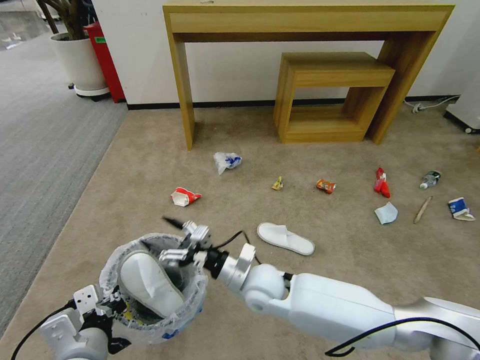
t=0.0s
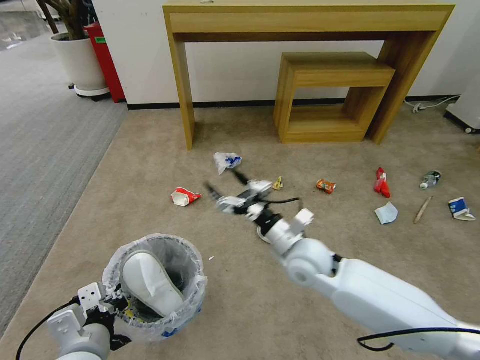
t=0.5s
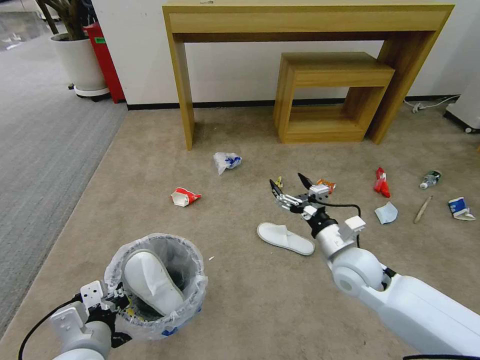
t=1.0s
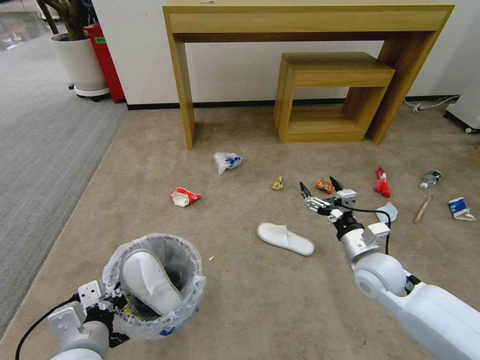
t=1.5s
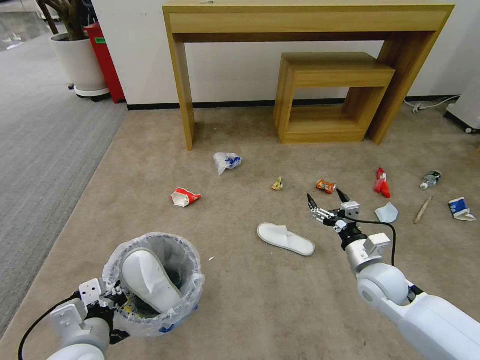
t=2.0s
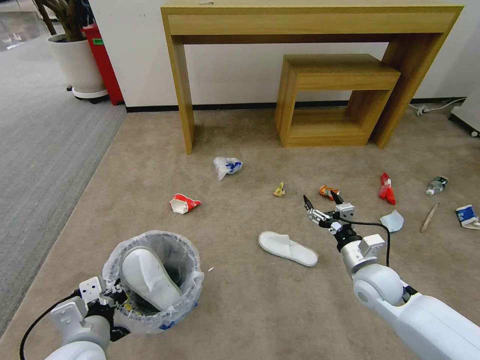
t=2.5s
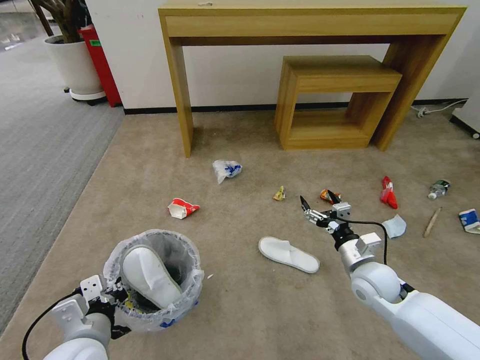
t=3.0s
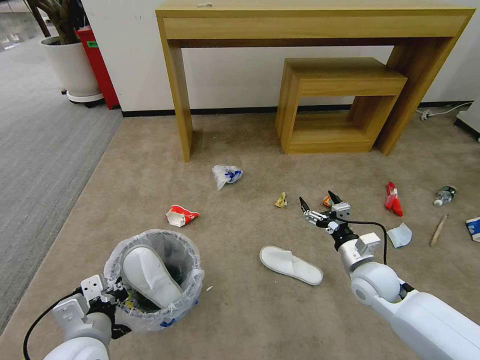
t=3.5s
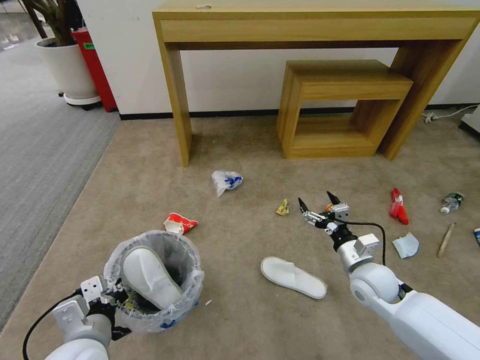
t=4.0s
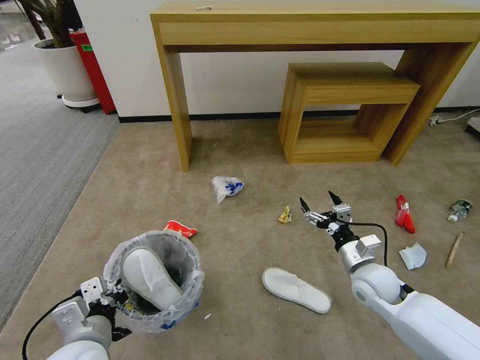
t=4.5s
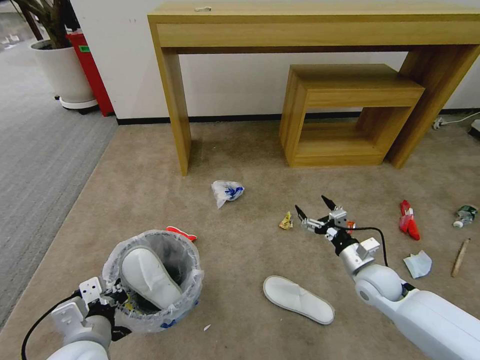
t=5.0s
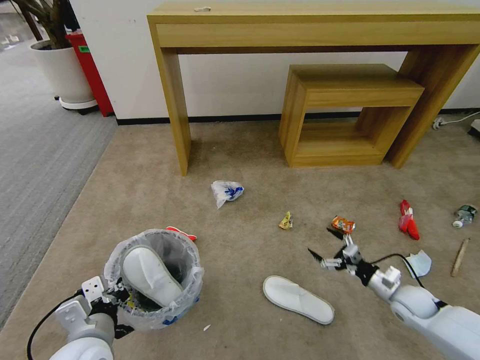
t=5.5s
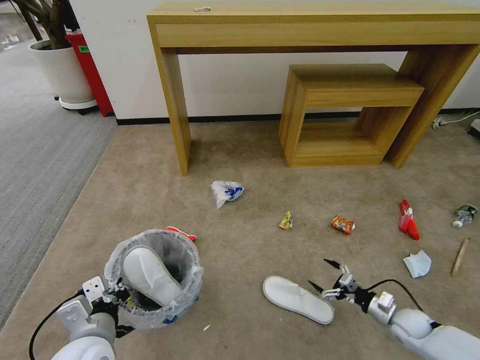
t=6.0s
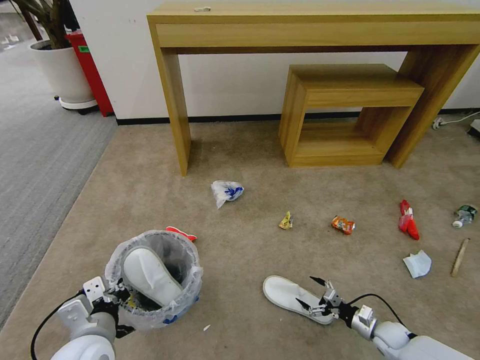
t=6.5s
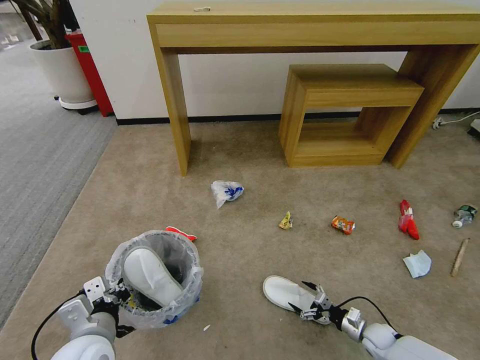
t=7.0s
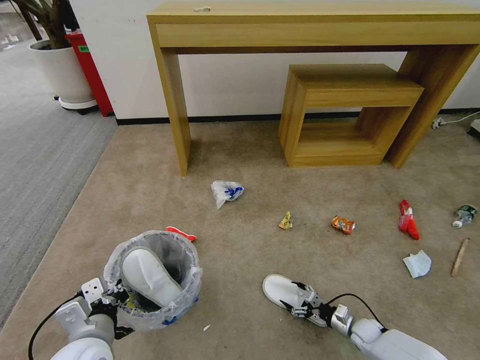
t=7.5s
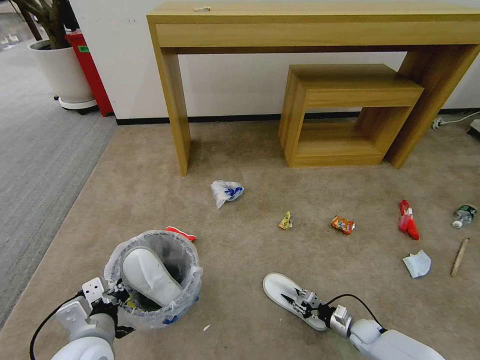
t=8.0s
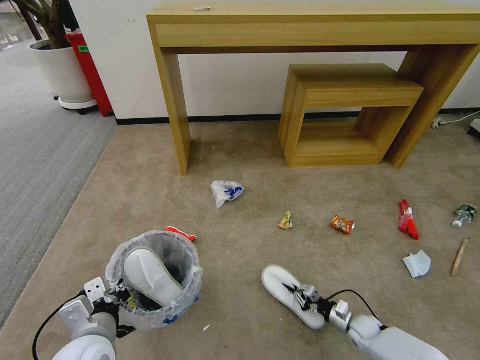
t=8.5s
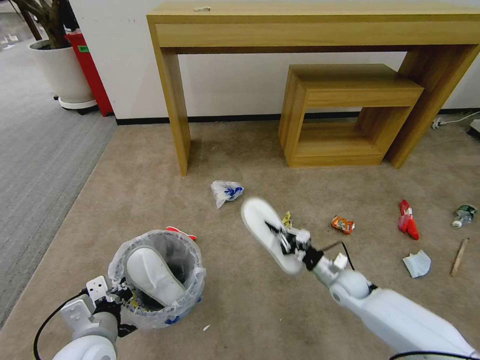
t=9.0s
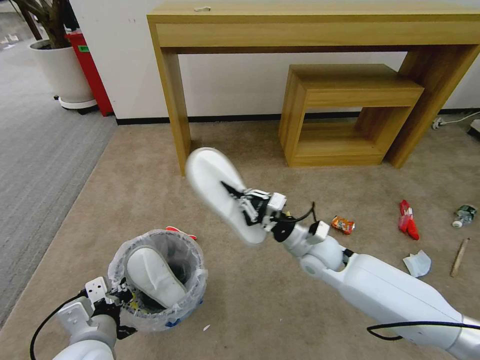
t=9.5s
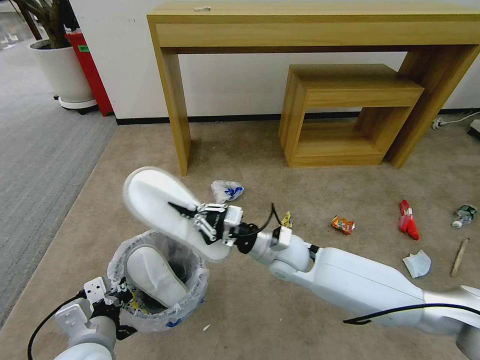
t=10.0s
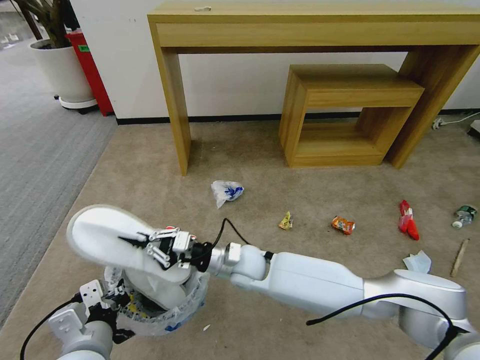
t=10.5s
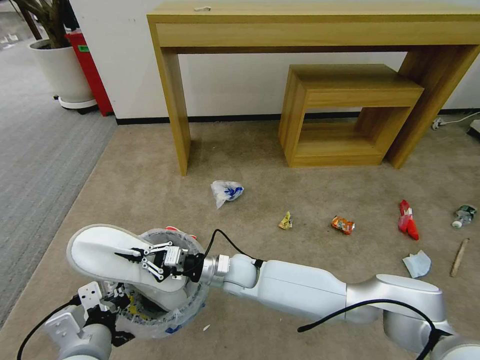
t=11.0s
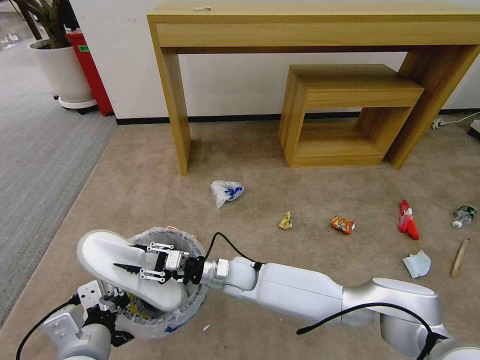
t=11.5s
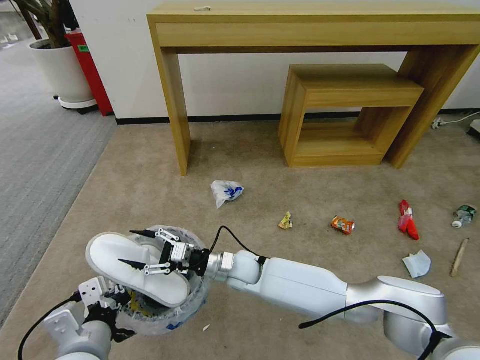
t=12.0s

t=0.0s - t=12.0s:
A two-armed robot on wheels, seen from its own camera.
Task of the whole recording: Pick up the trash bin and place the garbage on the floor into it.
t=0.0s - t=2.0s: The right gripper goes roughly 25 cm to the right.
t=4.0s - t=6.0s: The right gripper goes roughly 25 cm downward and to the right.
t=6.0s - t=8.0s: The right gripper travels downward and to the left by about 10 cm, and closes its fingers.
t=8.0s - t=10.0s: The right gripper travels upward and to the left by roughly 40 cm.
t=10.0s - t=12.0s: The right gripper travels to the left and downward by some 15 cm, and opens its fingers.

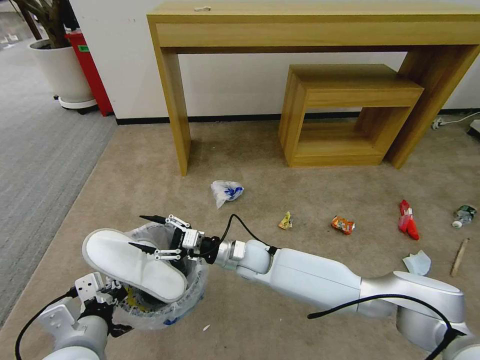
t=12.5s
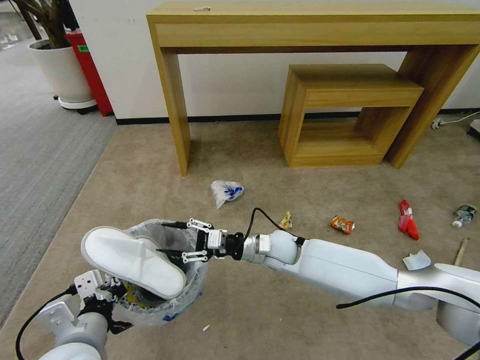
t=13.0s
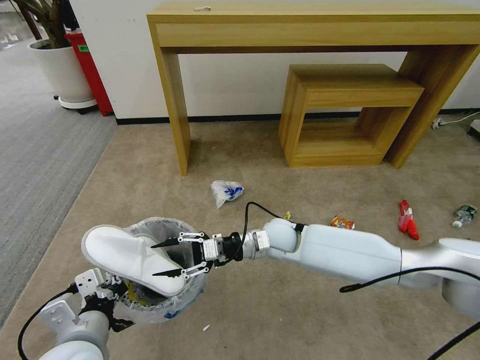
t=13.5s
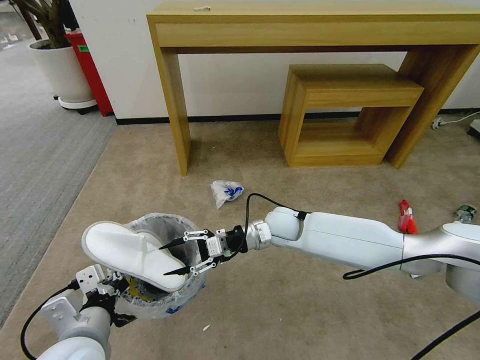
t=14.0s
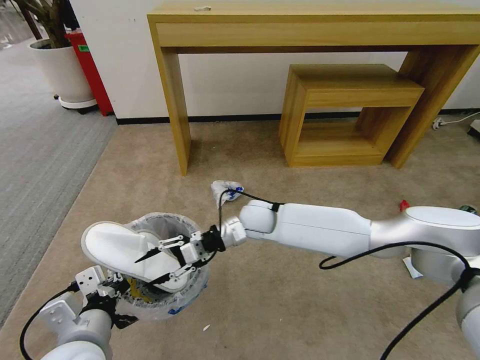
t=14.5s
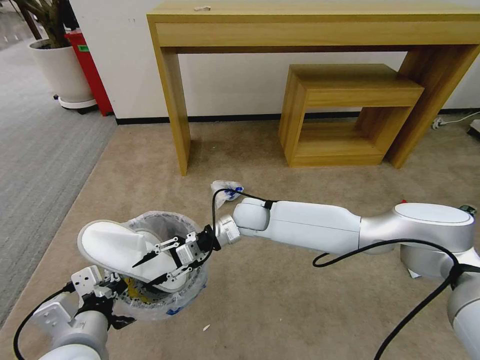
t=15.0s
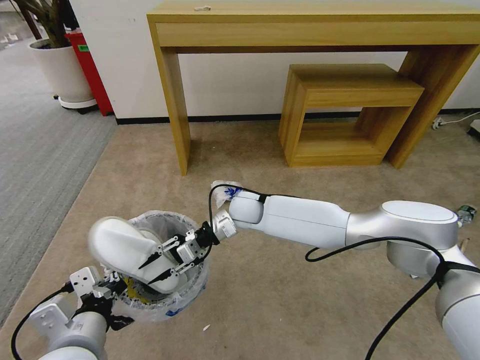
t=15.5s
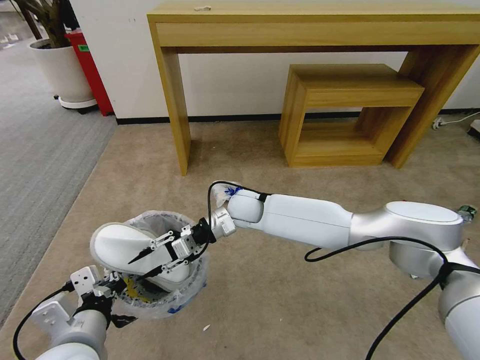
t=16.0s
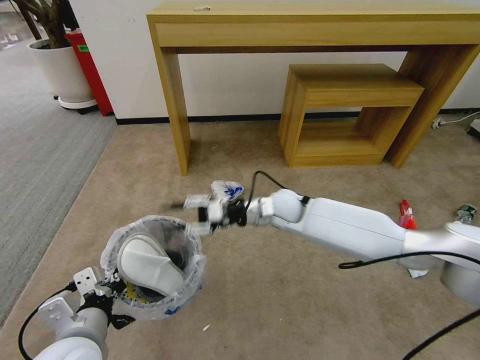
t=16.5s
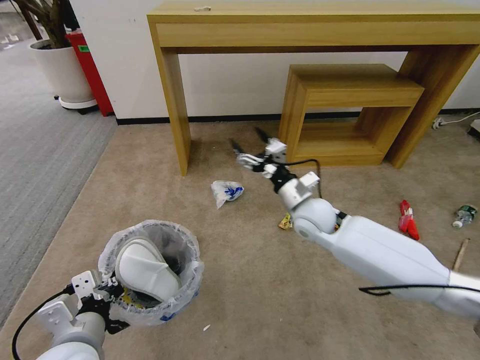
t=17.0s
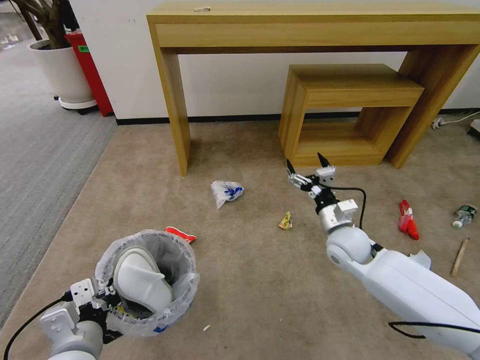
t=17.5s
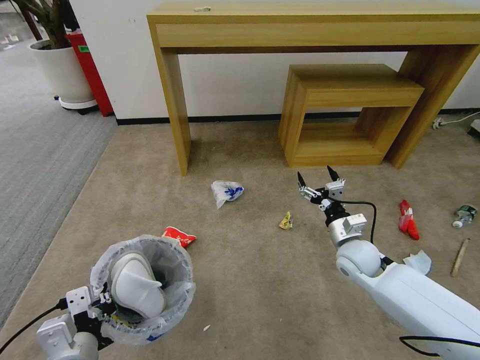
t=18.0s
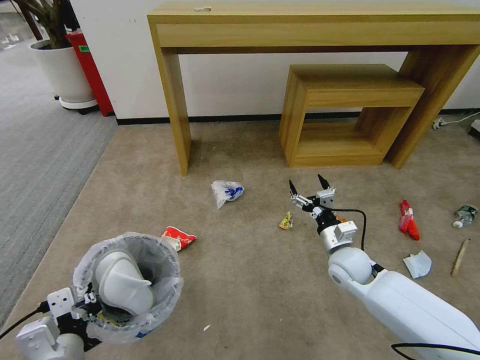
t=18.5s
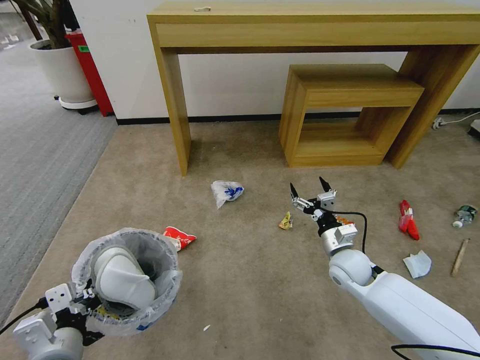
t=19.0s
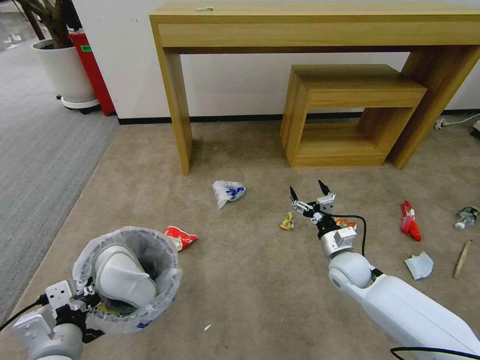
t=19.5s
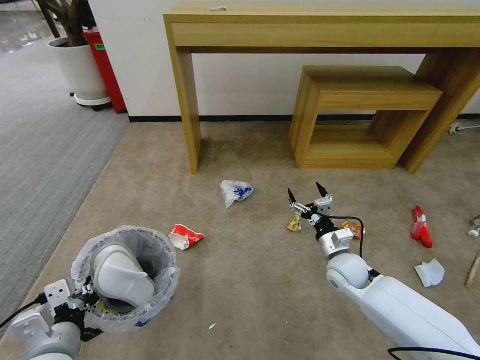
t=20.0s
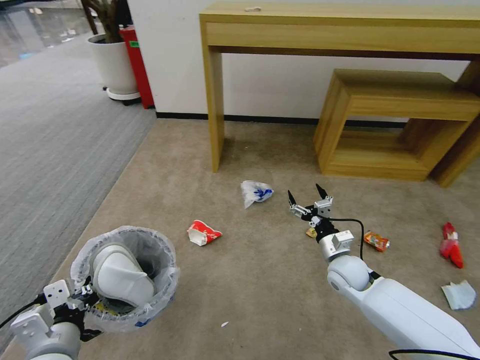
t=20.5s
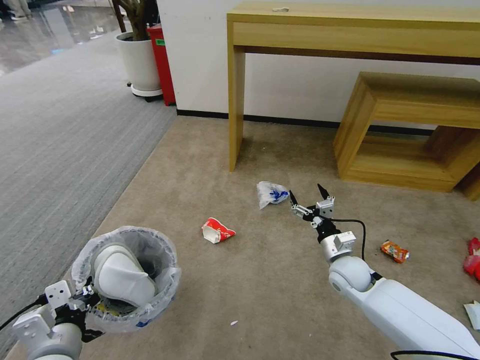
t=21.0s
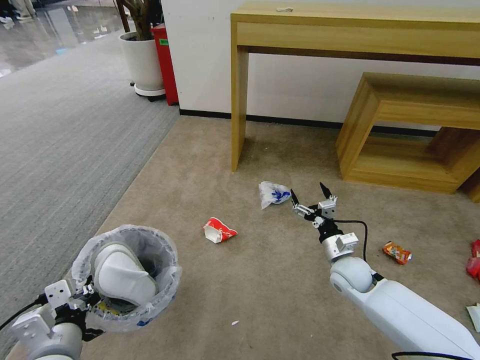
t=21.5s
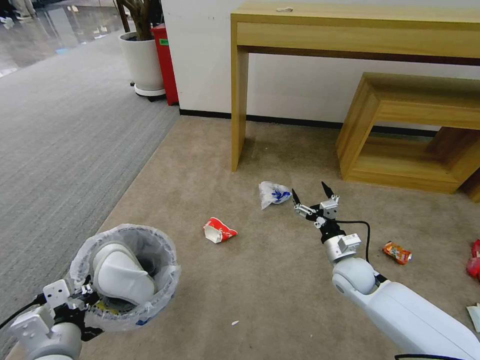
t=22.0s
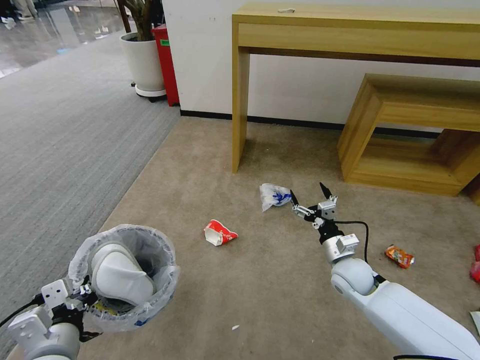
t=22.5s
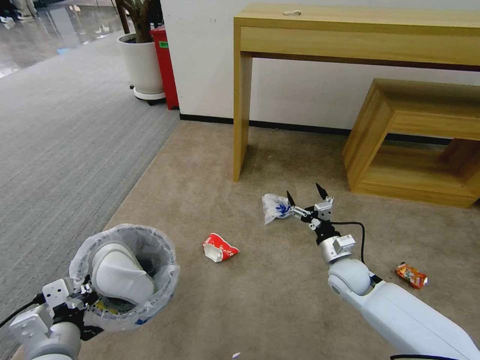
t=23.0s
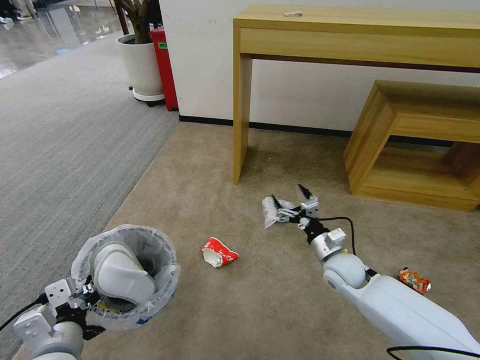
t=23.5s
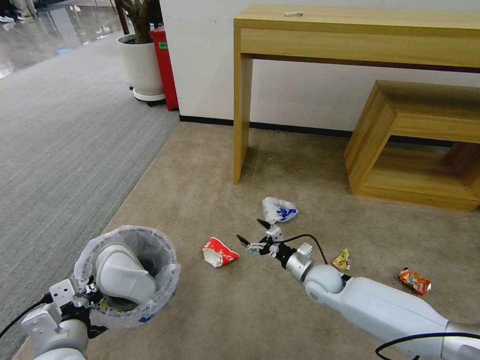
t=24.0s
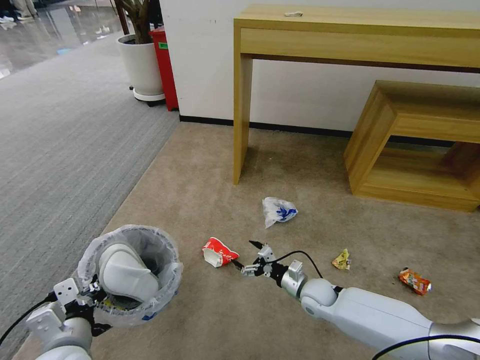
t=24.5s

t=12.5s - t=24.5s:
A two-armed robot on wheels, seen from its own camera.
Task of the whole recording: Pick up the trash bin and place the garbage on the floor into it.
t=12.5s - t=14.5s: The right gripper moves upward and forward, roughly 10 cm.
t=14.5s - t=16.5s: The right gripper is displaced to the right by some 5 cm.
t=16.5s - t=18.5s: The right gripper moves to the right, backward and downward, roughly 20 cm, and opens its fingers.
t=22.5s - t=24.5s: The right gripper shifts approximately 10 cm downward and to the left.

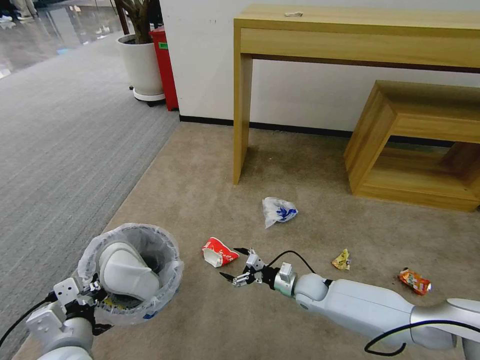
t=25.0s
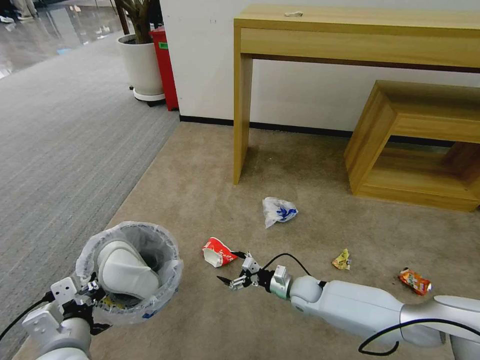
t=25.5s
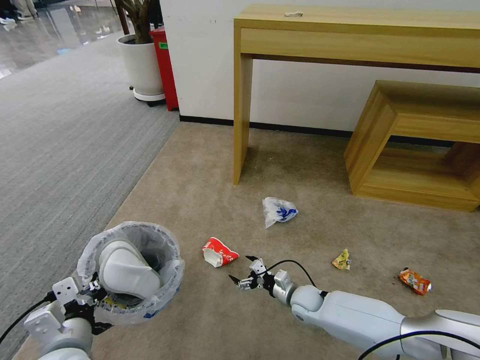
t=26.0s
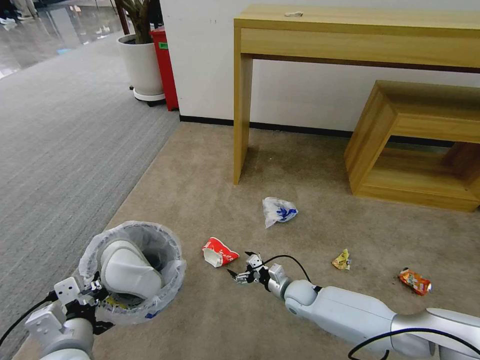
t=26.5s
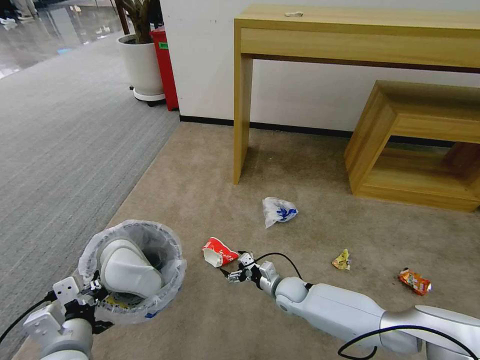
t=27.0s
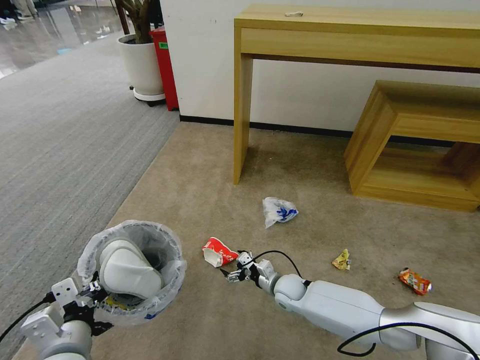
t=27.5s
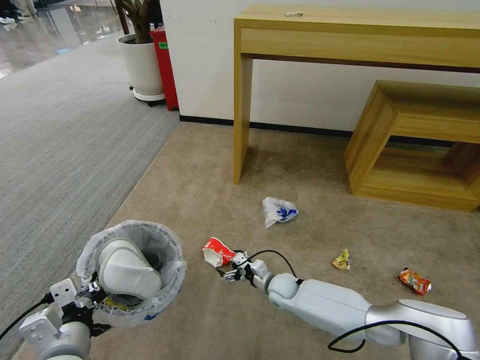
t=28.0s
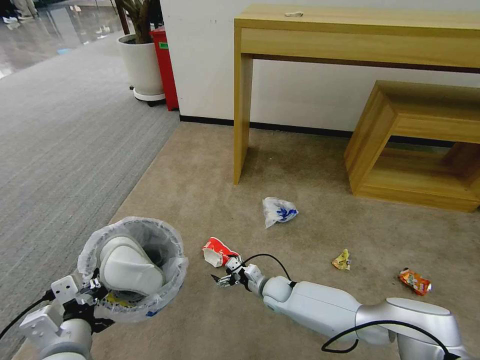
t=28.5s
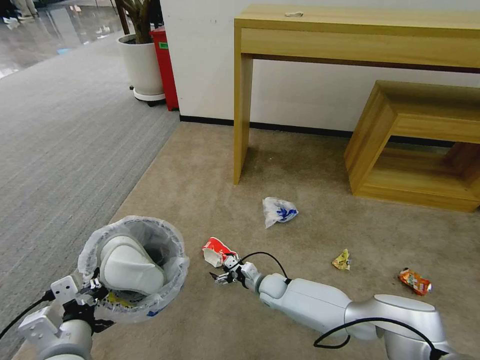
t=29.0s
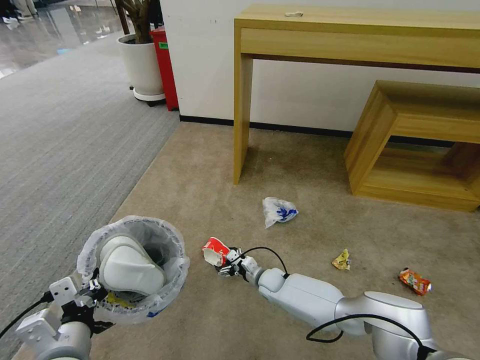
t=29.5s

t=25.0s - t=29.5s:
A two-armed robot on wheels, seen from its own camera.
Task of the whole recording: Pick up the trash bin and place the garbage on the floor into it.
t=25.0s - t=27.0s: The right gripper goes some 5 cm to the left.
t=27.0s - t=29.5s: The right gripper moves about 5 cm.
